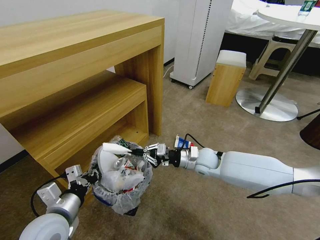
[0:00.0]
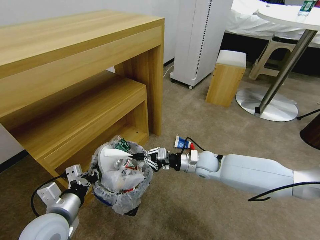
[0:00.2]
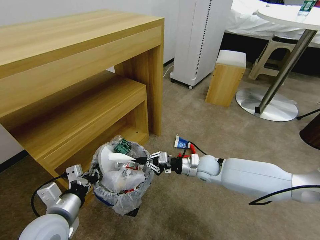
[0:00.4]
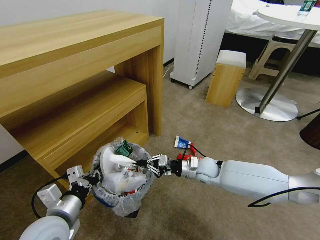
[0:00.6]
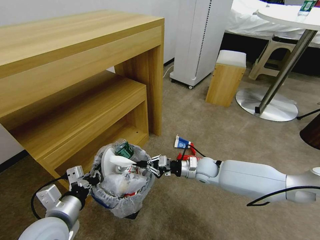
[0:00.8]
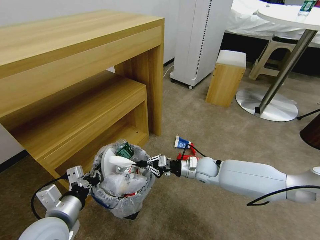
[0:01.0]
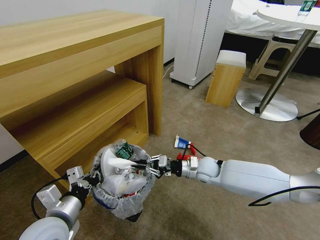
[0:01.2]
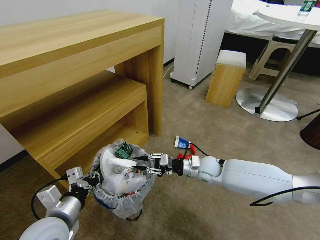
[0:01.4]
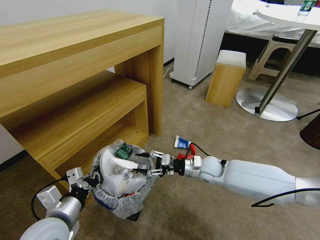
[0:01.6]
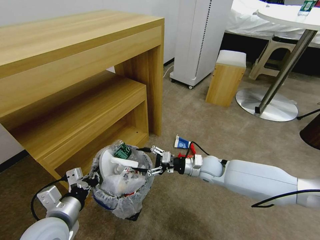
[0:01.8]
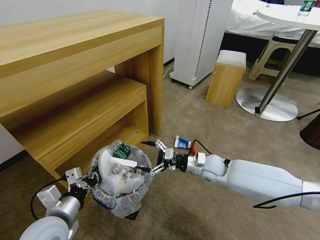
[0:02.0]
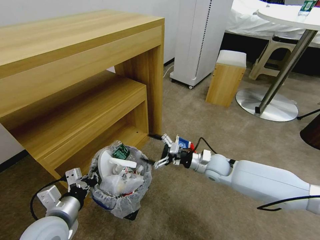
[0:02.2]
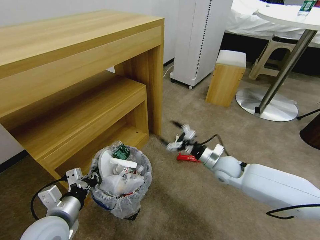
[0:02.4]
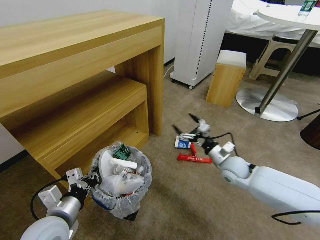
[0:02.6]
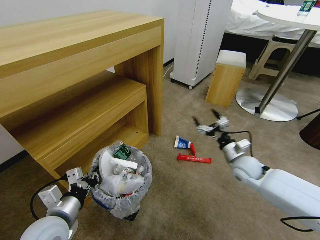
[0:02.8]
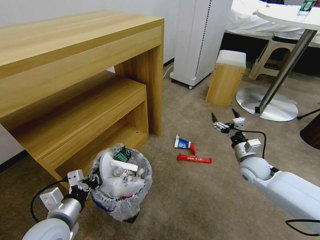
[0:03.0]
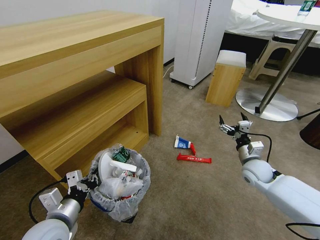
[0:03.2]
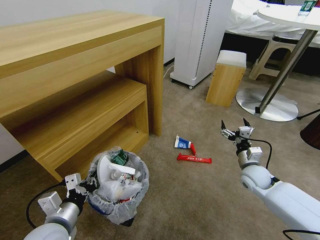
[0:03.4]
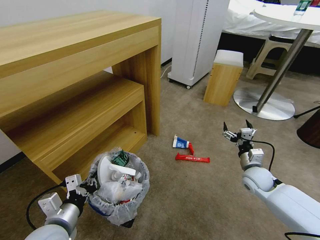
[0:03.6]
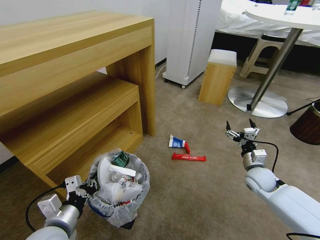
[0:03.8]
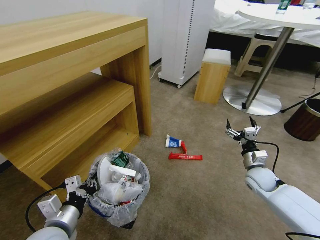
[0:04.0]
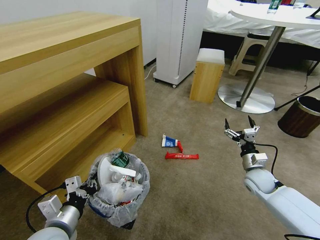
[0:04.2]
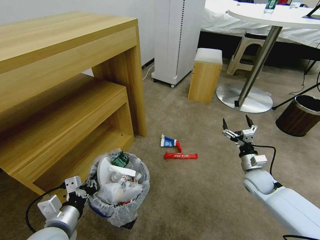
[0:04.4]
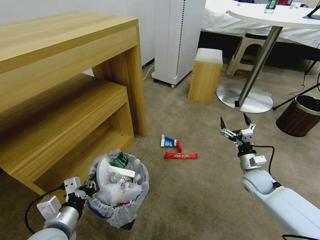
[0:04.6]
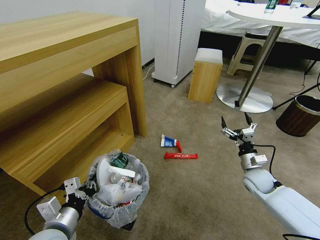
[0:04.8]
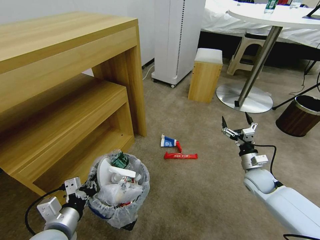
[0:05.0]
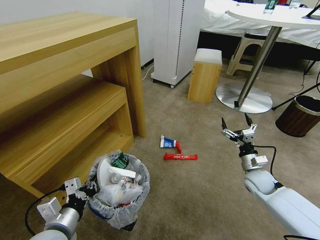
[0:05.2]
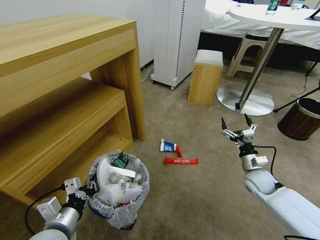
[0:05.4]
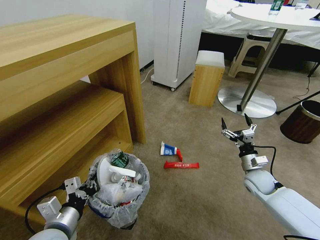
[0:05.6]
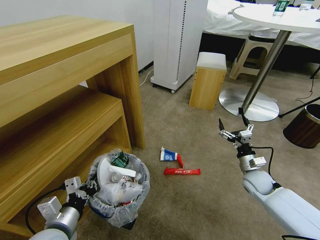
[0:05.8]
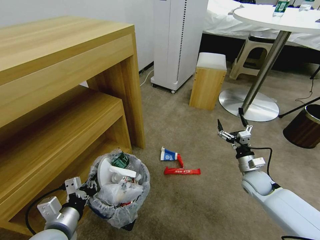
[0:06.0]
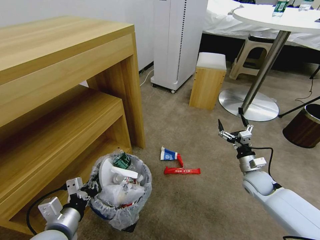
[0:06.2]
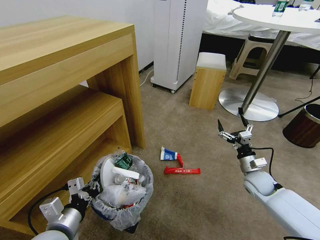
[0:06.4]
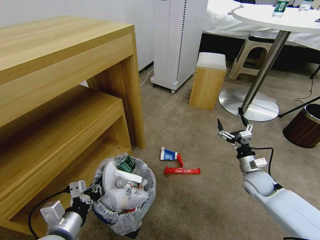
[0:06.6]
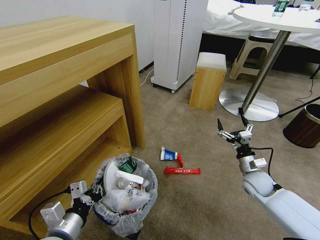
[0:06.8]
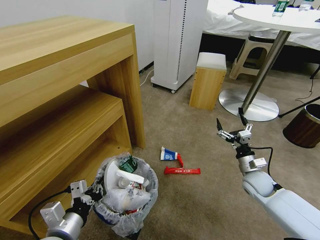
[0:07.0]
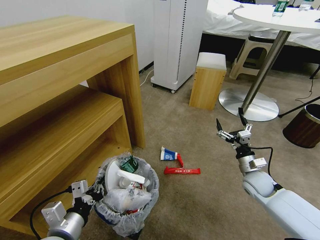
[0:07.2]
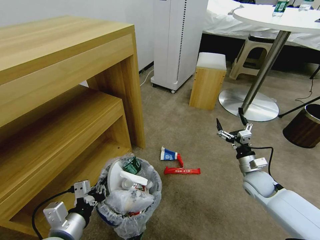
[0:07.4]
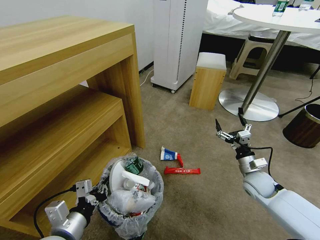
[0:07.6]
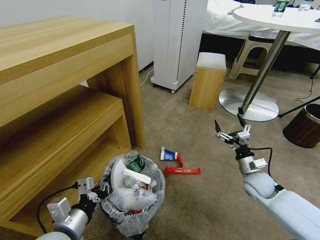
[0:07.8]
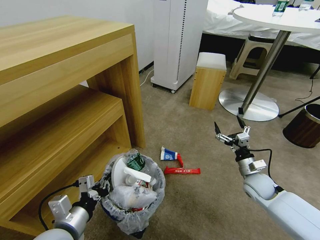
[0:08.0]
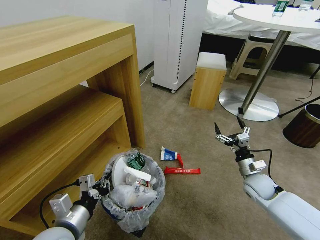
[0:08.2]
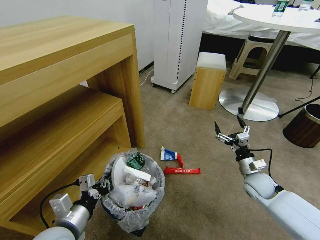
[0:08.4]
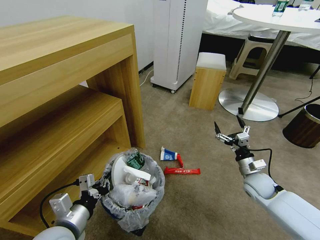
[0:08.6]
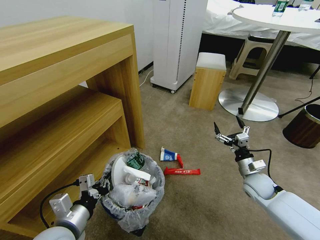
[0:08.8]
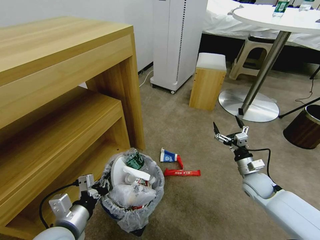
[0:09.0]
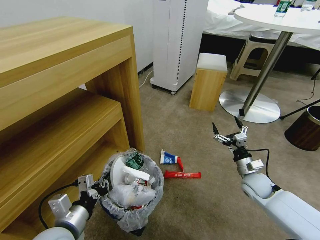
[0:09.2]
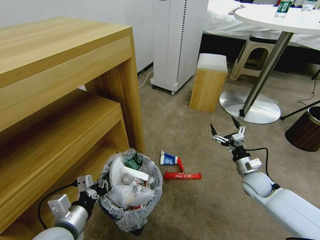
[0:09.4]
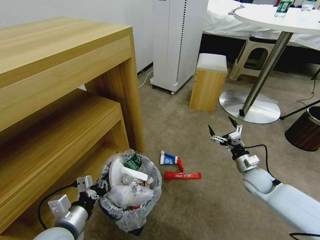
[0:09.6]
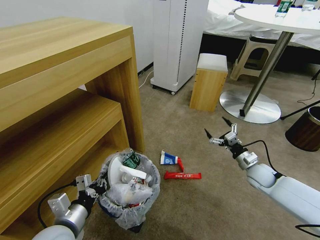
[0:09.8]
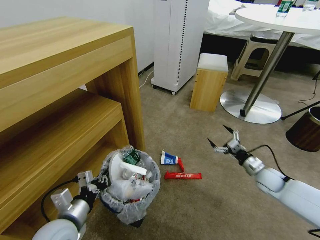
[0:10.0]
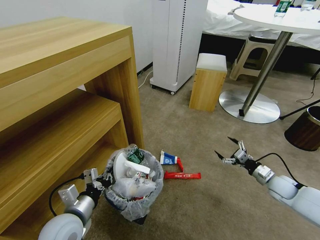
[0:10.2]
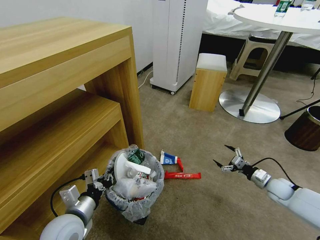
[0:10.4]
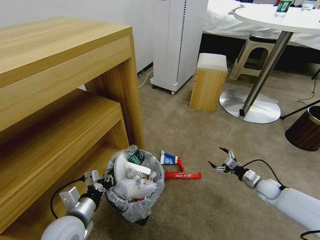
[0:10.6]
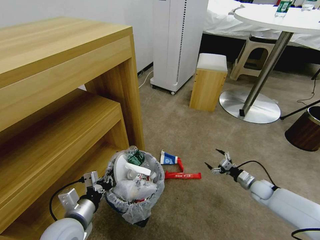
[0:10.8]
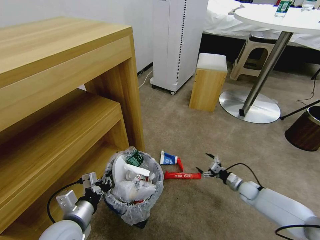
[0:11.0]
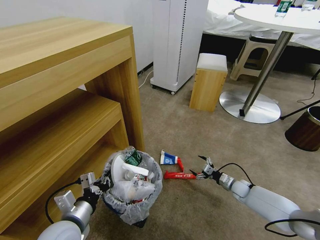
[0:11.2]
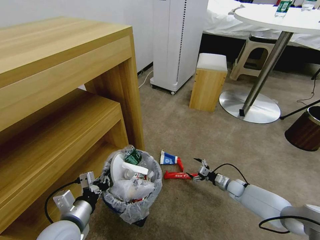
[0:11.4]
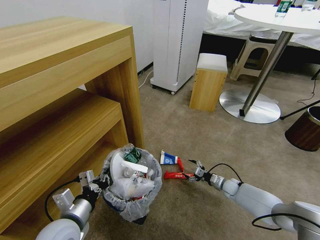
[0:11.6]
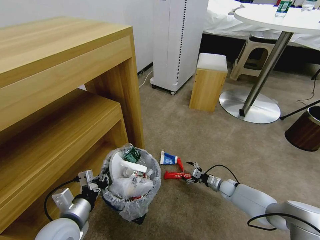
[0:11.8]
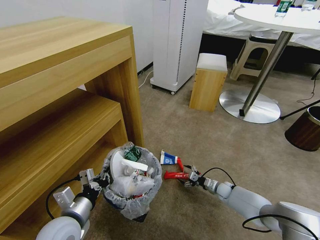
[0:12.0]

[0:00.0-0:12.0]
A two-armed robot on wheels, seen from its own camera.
Task of the whole recording: Pick up the trash bin and place the garbage on the floor into it.
0:00.0 to 0:01.6: The right gripper opens its fingers.
0:01.6 to 0:03.0: The right gripper shifts roughly 15 cm to the right, and opens.
0:03.0 to 0:04.4: The right gripper moves roughly 5 cm.
0:06.0 to 0:09.0: The grippers move only a little.
0:09.0 to 0:10.4: The right gripper shifts roughly 15 cm to the right and downward.
0:10.4 to 0:12.0: The right gripper travels to the left and downward by about 20 cm.

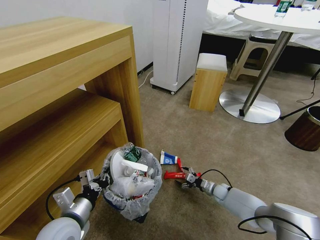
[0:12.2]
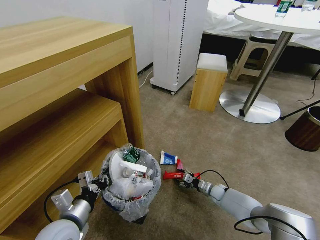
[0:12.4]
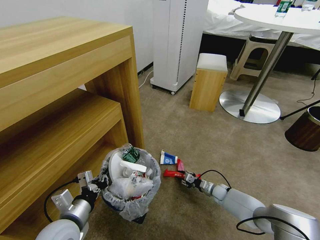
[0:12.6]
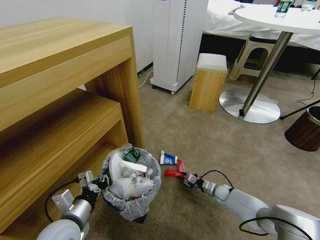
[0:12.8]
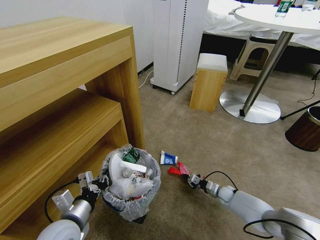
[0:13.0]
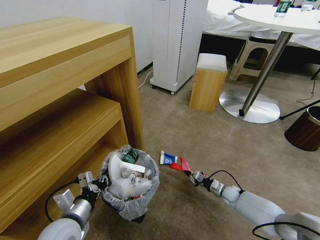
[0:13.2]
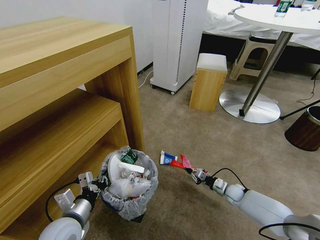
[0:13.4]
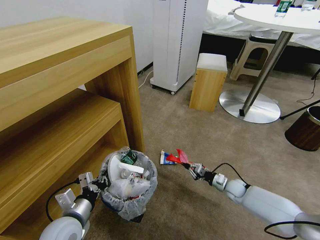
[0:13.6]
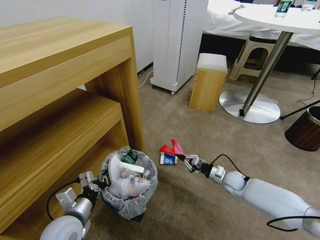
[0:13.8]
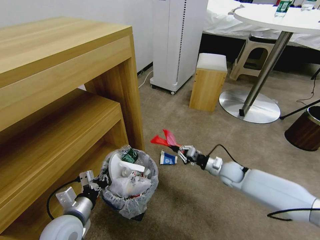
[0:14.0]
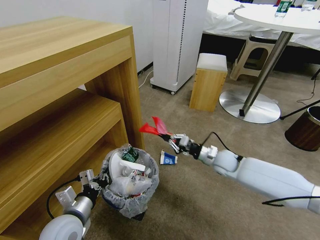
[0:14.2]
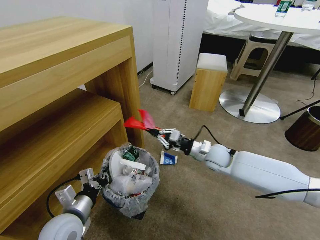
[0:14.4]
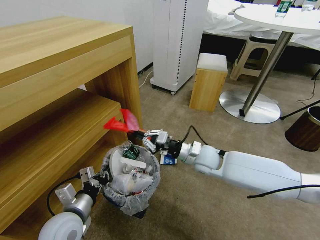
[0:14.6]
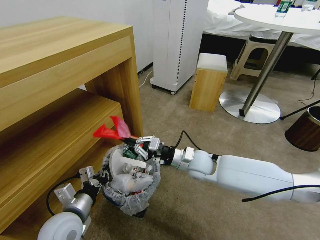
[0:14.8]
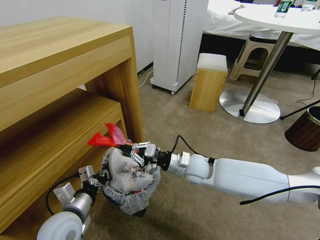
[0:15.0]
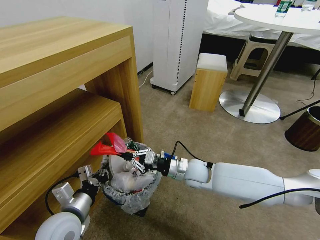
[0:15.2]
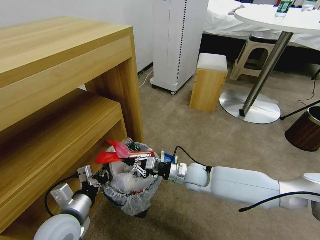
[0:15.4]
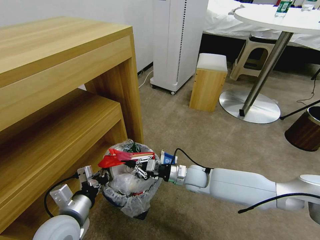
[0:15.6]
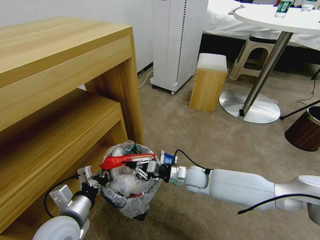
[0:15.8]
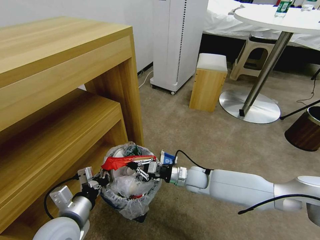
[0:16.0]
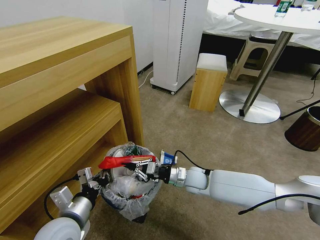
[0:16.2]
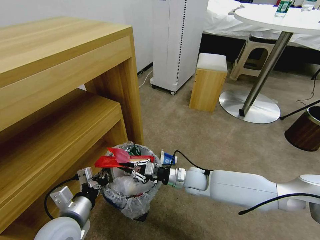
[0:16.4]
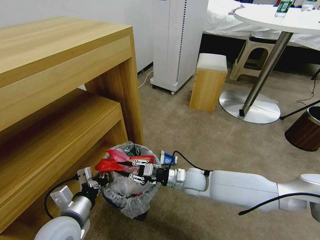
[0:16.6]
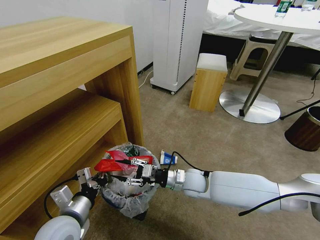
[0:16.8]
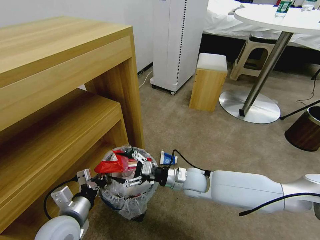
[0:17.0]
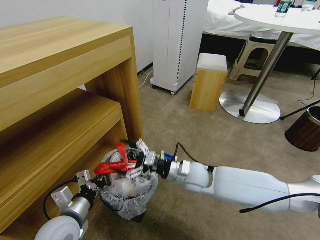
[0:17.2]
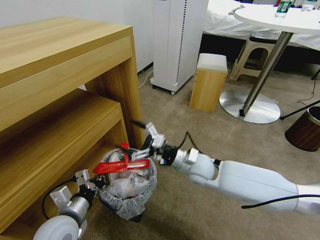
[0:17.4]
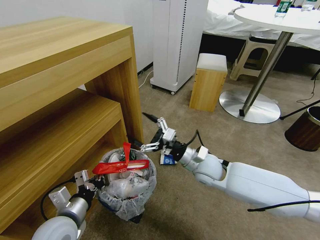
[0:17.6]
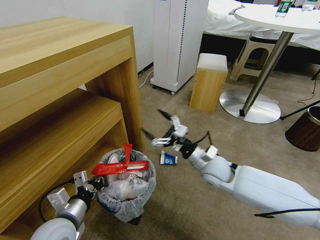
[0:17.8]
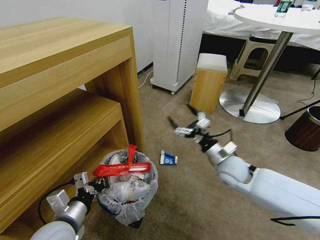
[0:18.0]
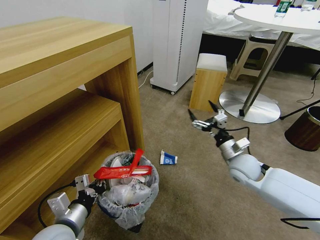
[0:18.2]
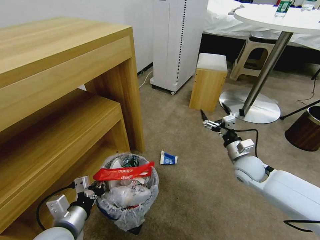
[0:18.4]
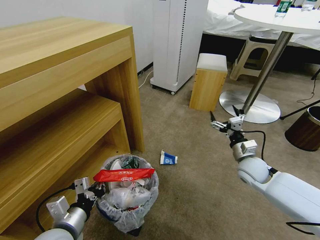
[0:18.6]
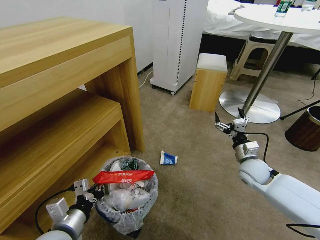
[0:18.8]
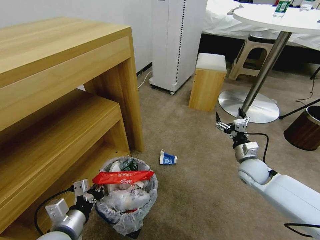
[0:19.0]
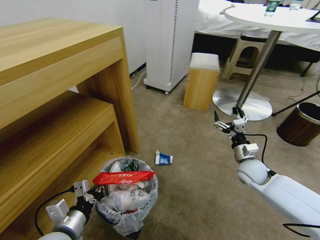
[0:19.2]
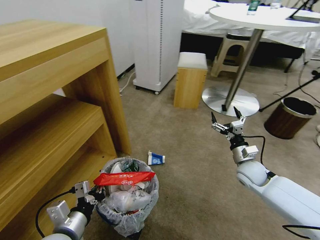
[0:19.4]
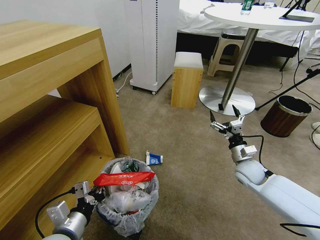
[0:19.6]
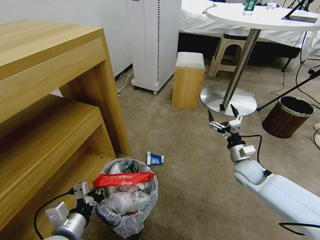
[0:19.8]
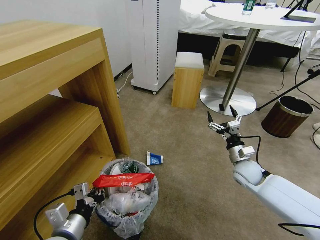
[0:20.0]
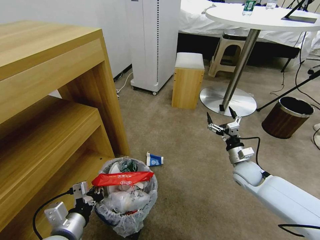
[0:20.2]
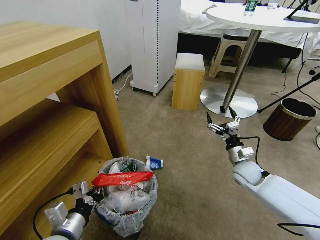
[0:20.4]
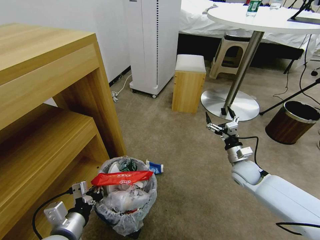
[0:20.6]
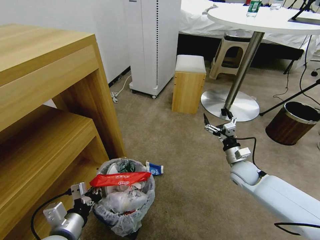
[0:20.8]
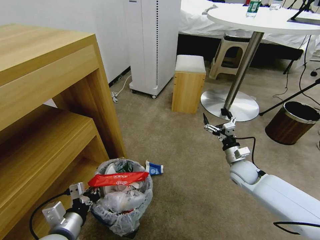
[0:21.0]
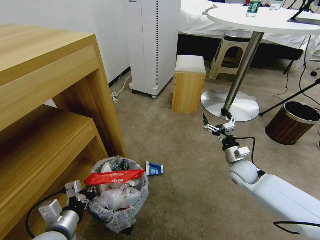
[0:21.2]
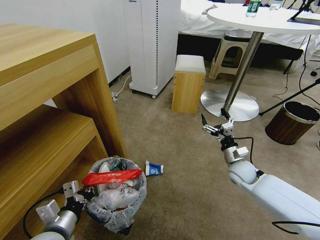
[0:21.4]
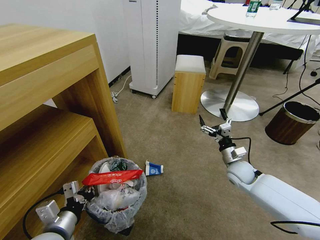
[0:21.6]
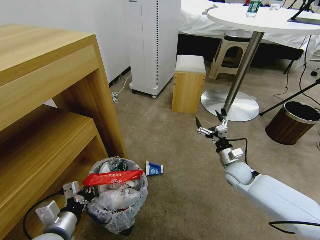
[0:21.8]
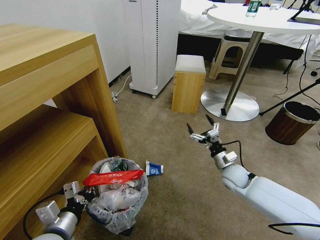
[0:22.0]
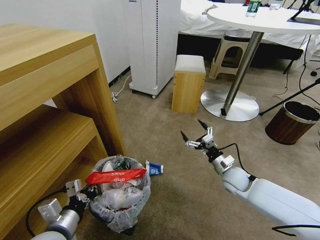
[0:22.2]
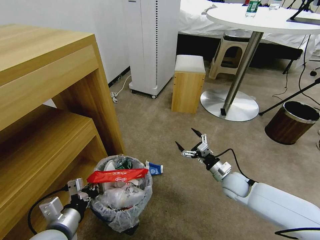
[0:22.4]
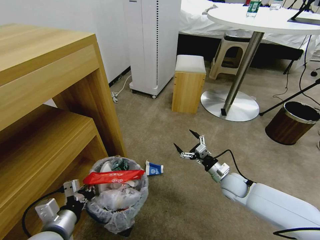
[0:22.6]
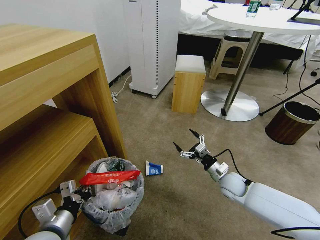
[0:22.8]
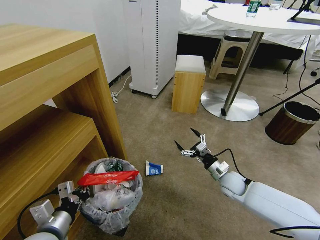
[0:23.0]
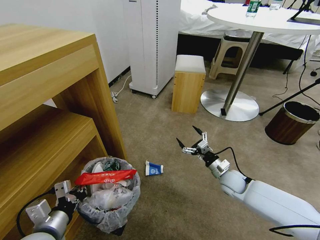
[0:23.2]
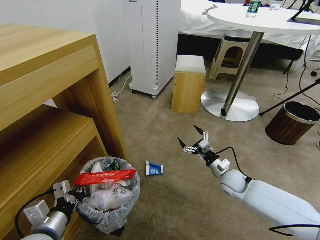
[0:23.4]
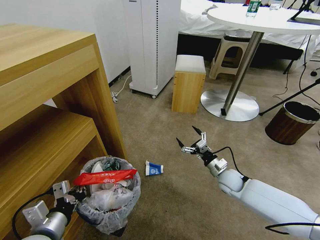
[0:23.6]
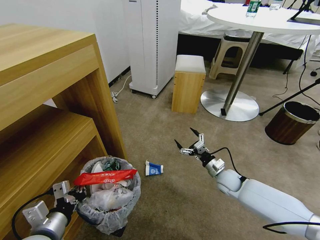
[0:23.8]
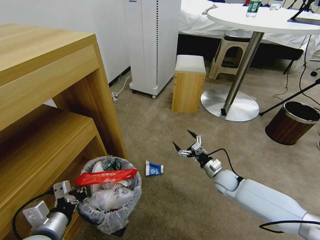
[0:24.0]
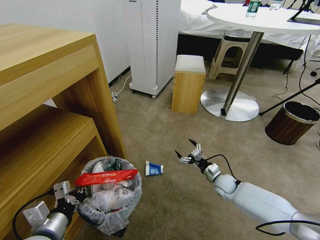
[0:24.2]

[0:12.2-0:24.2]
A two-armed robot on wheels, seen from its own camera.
Task of the whole recording: Pick up the trash bin and place the garbage on the floor into it.
0:12.2 to 0:13.8: The right gripper moves upward, about 15 cm, and closes up.
0:13.8 to 0:15.2: The right gripper travels to the left and upward by approximately 25 cm.
0:16.6 to 0:18.2: The right gripper goes roughly 20 cm to the right and upward, and opens.
0:18.2 to 0:19.8: The right gripper travels downward by roughly 5 cm.
0:21.2 to 0:22.6: The right gripper changes place by roughly 5 cm.
0:22.6 to 0:24.2: The right gripper shifts about 5 cm downward.
